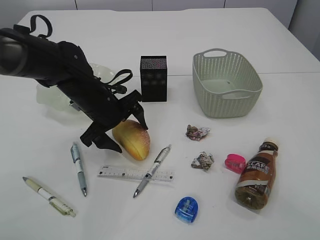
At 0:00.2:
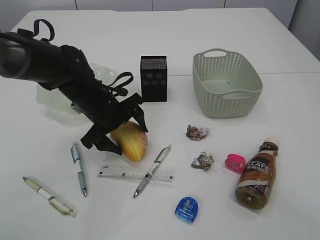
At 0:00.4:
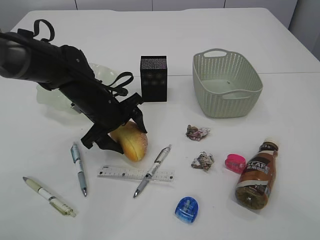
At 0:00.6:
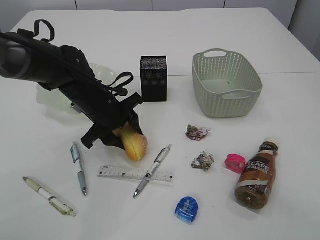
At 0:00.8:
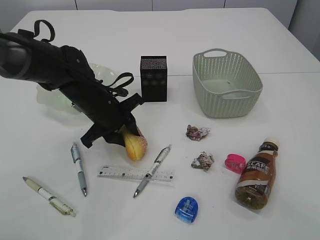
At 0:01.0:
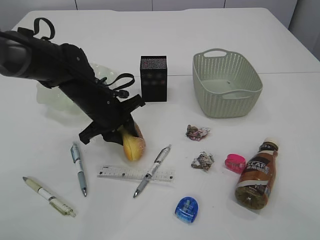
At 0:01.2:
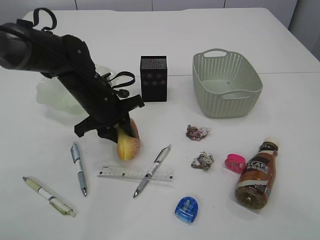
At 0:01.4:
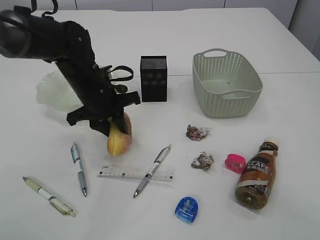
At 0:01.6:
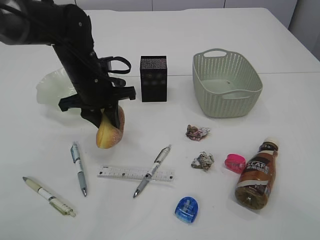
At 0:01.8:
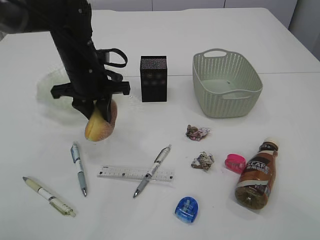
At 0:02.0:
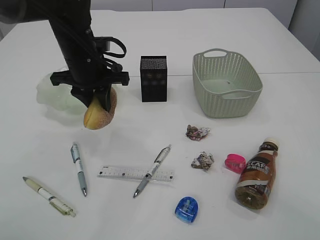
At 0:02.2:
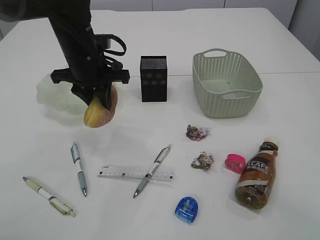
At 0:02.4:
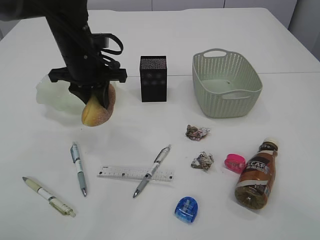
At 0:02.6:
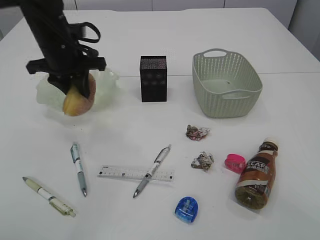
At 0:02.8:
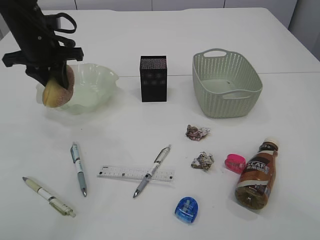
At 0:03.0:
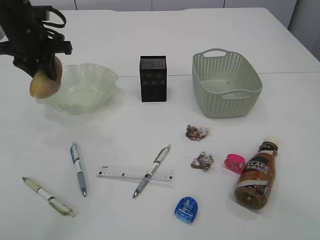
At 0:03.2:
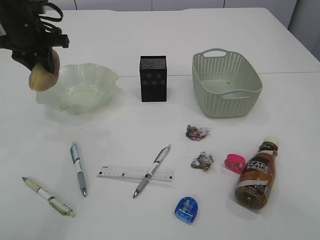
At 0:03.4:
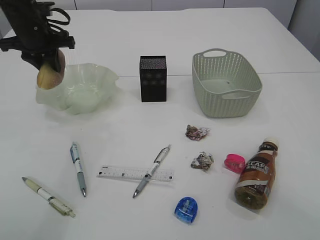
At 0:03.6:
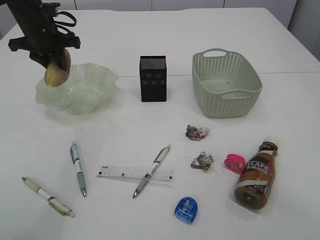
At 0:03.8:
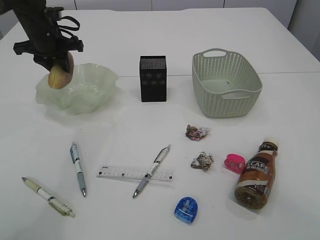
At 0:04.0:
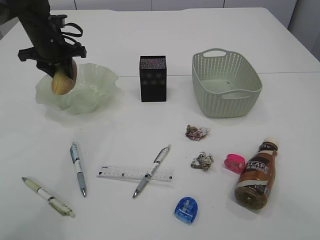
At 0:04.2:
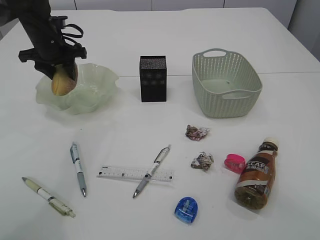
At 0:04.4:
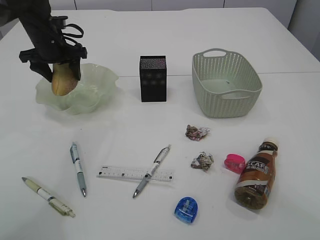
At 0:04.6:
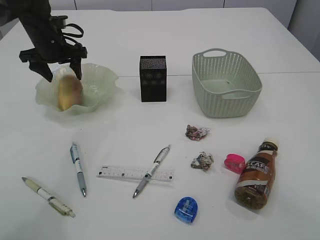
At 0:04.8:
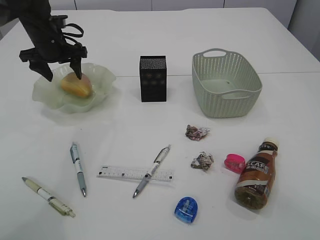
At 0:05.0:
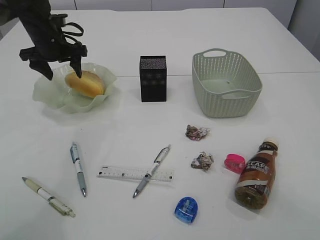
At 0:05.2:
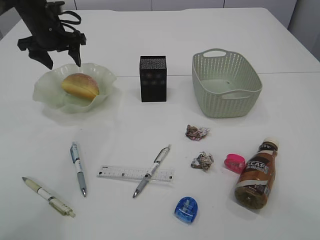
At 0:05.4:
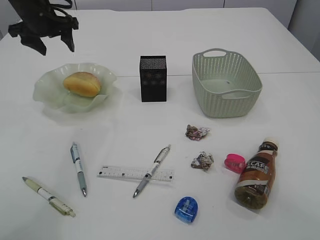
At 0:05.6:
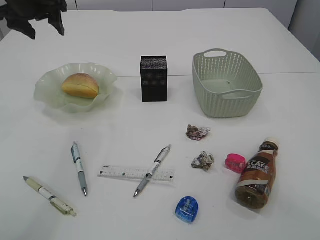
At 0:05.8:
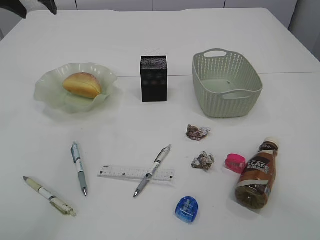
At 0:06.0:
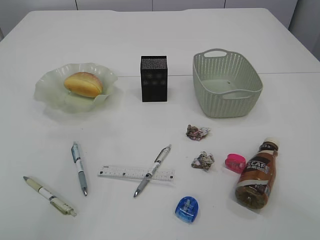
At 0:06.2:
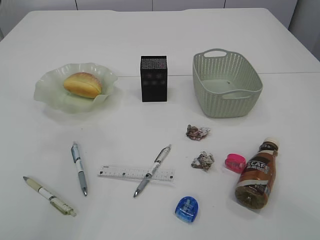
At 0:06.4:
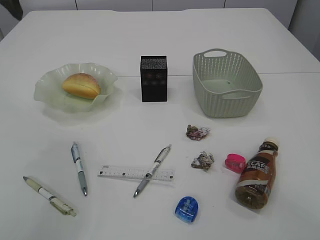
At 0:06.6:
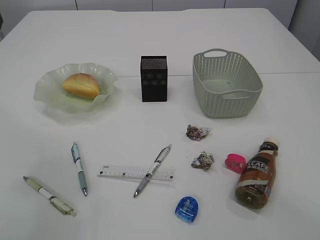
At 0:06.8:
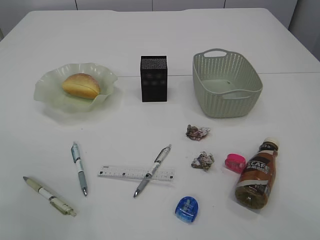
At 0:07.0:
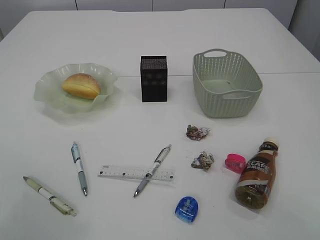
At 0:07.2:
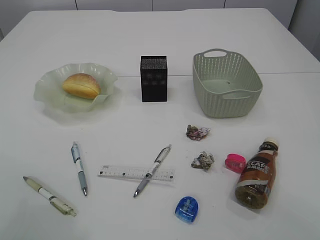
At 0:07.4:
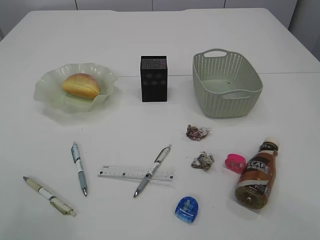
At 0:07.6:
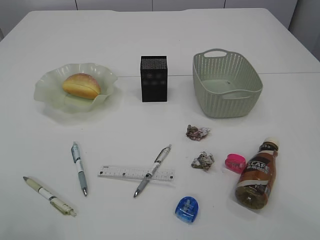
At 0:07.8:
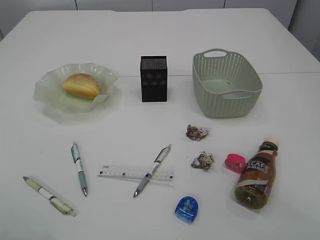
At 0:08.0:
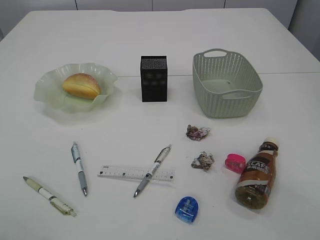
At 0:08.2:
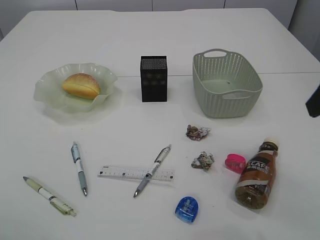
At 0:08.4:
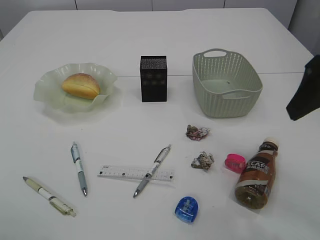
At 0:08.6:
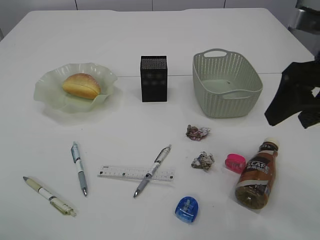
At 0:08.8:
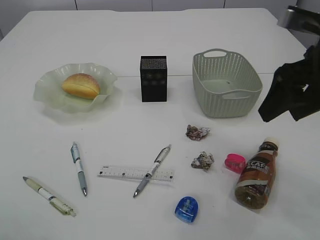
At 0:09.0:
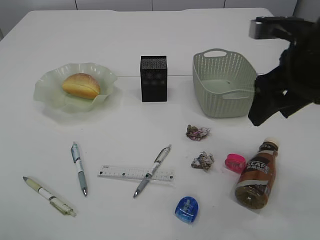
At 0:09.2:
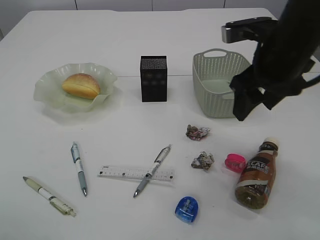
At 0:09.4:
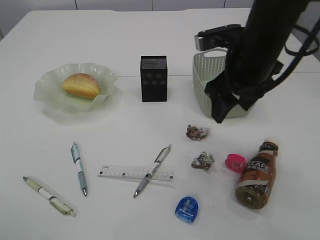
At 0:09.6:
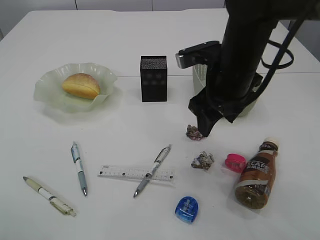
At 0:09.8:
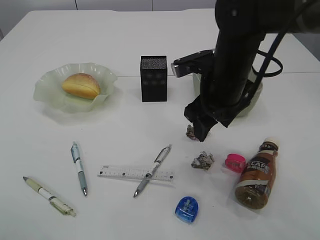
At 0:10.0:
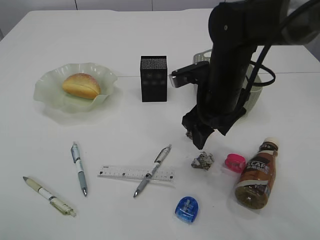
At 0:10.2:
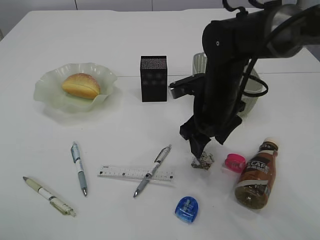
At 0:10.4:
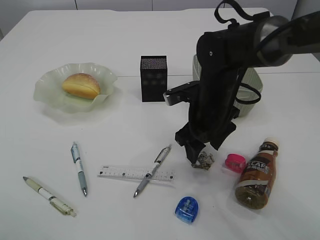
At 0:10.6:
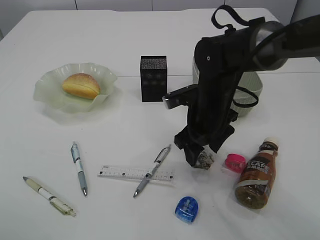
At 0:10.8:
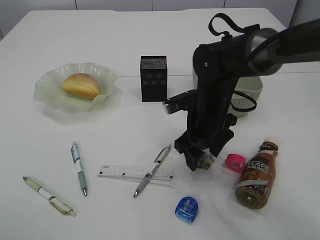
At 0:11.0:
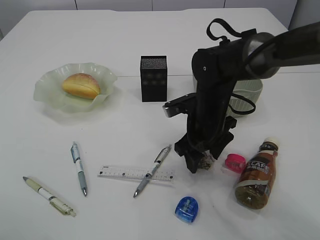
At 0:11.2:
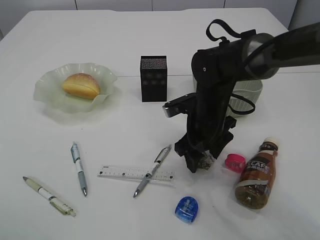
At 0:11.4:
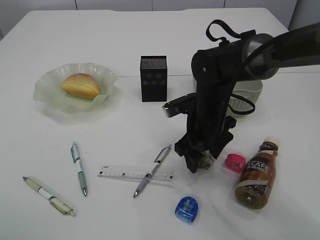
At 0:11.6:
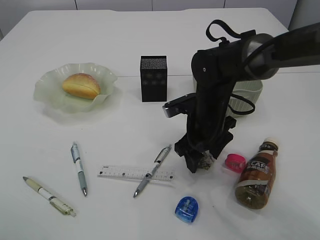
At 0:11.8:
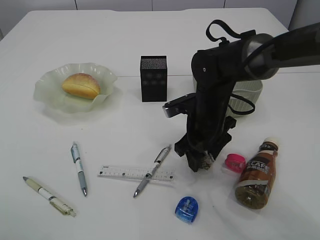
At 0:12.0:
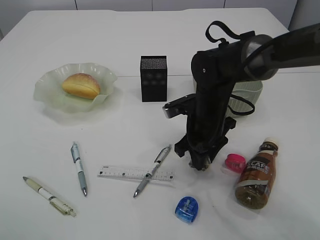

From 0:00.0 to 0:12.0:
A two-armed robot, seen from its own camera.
Step, from 0:02.6 to 0:05.4: place the bread in the plate.
From 0:00.0 to 0:01.6: The left gripper closes up.
From 0:01.6 to 0:03.0: The left gripper shifts approximately 15 cm to the left, upward and forward.
From 0:03.0 to 0:04.4: The left gripper heads forward, covering roughly 5 cm, and opens its fingers.
From 0:04.4 to 0:06.0: The left gripper shifts approximately 20 cm upward.
From 0:07.6 to 0:09.0: The right gripper heads forward, covering roughly 15 cm.
From 0:09.0 to 0:10.4: The right gripper moves downward, to the left and forward, some 20 cm.
From 0:10.4 to 0:12.0: The right gripper closes.

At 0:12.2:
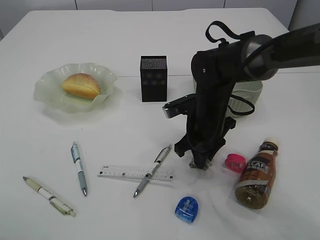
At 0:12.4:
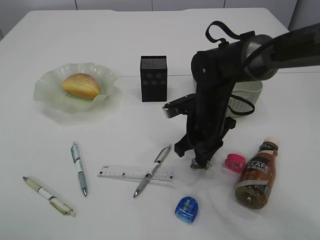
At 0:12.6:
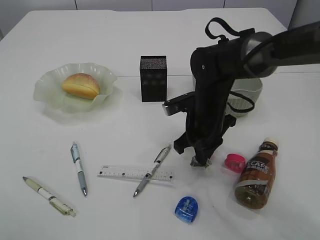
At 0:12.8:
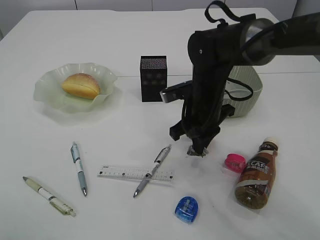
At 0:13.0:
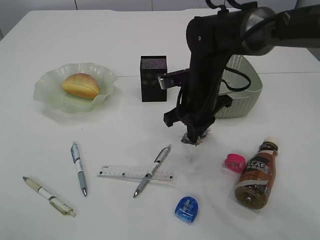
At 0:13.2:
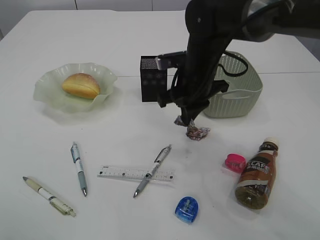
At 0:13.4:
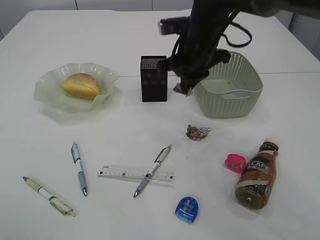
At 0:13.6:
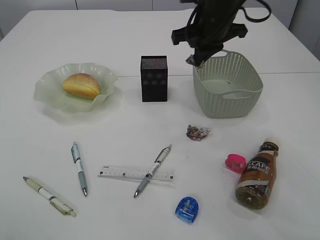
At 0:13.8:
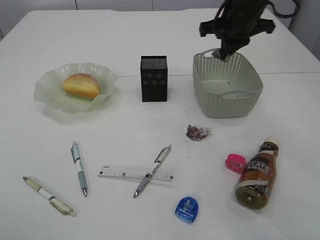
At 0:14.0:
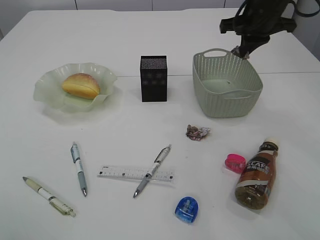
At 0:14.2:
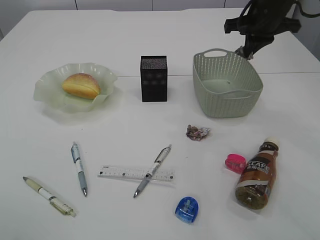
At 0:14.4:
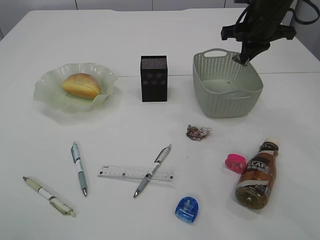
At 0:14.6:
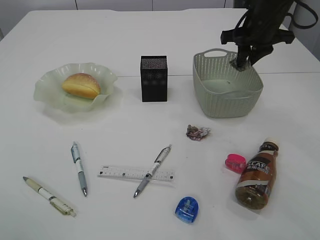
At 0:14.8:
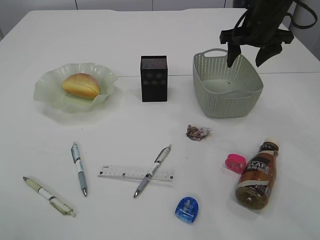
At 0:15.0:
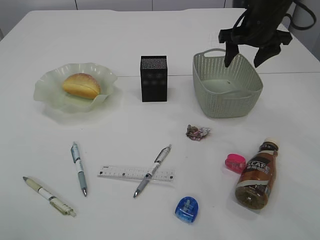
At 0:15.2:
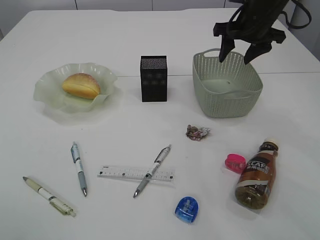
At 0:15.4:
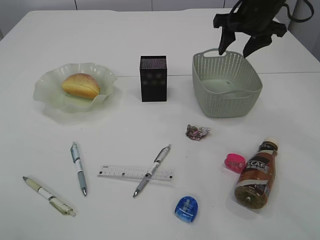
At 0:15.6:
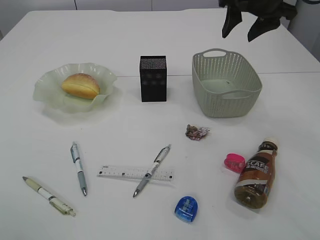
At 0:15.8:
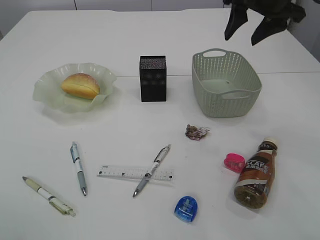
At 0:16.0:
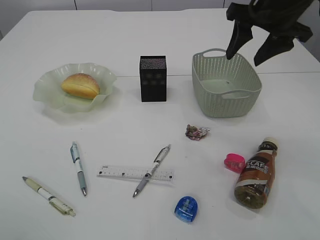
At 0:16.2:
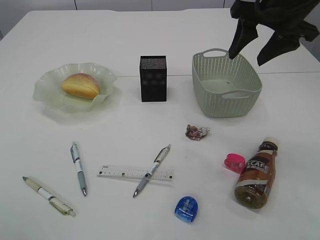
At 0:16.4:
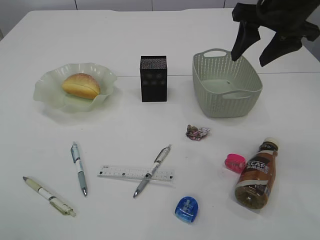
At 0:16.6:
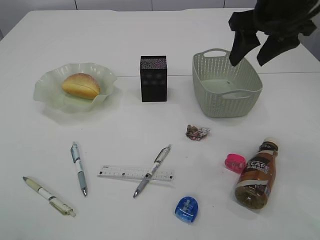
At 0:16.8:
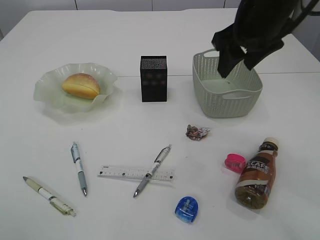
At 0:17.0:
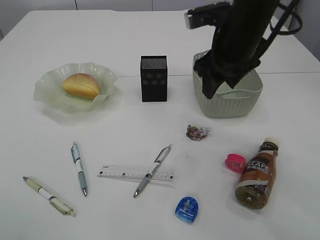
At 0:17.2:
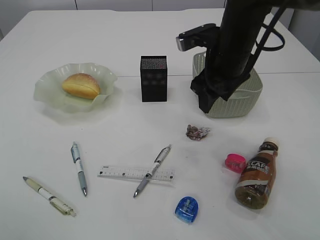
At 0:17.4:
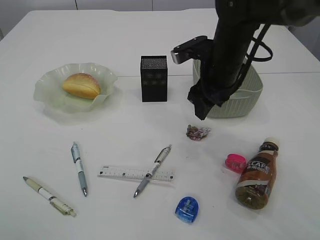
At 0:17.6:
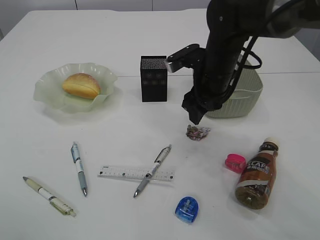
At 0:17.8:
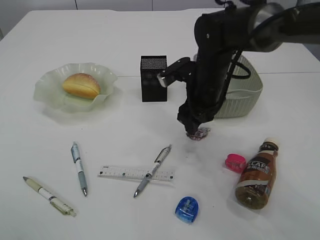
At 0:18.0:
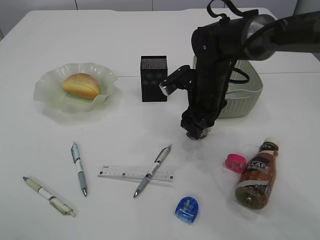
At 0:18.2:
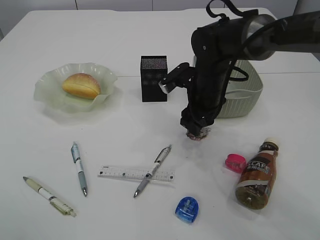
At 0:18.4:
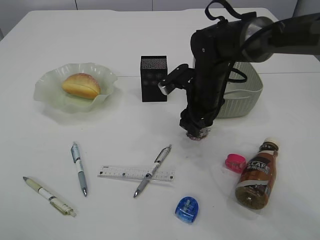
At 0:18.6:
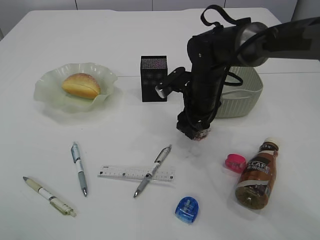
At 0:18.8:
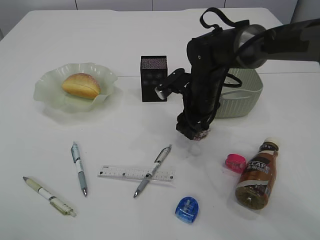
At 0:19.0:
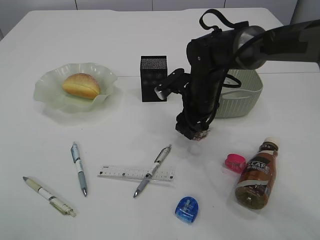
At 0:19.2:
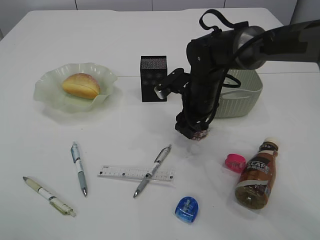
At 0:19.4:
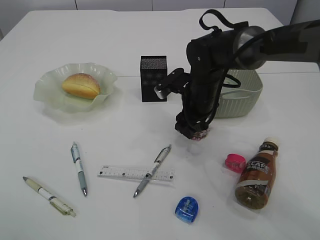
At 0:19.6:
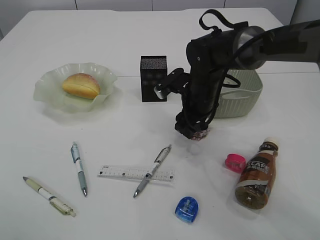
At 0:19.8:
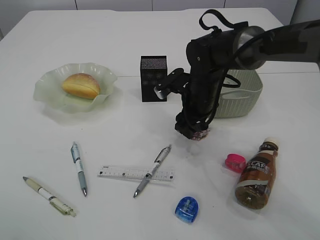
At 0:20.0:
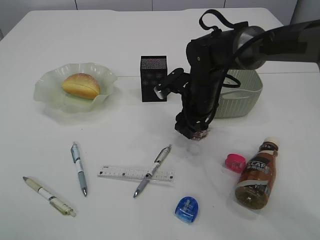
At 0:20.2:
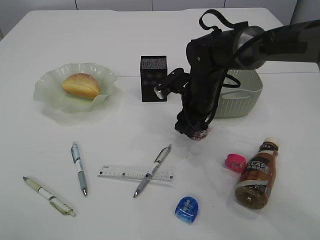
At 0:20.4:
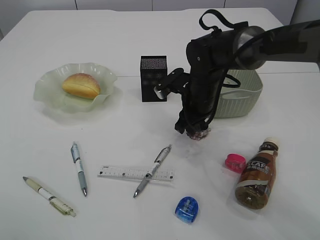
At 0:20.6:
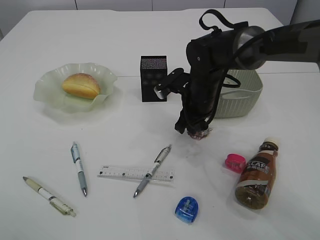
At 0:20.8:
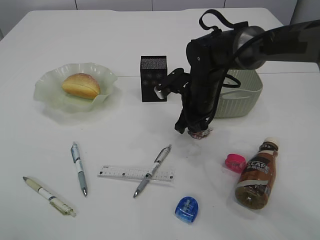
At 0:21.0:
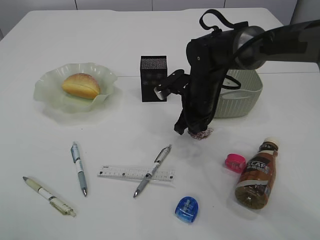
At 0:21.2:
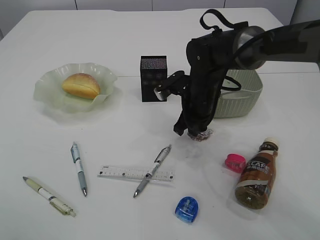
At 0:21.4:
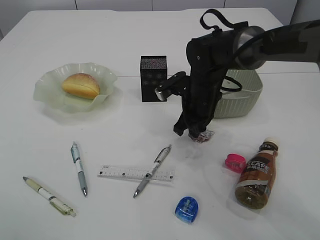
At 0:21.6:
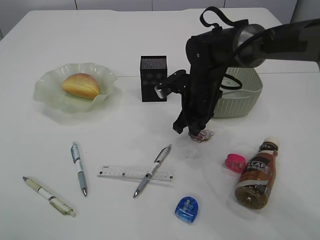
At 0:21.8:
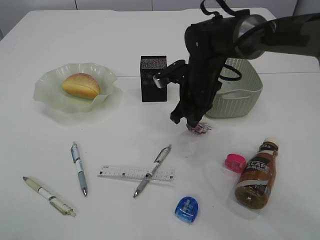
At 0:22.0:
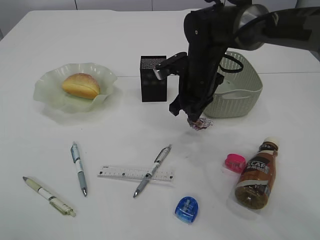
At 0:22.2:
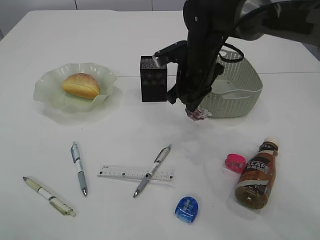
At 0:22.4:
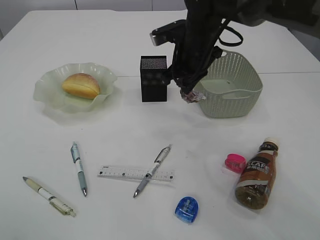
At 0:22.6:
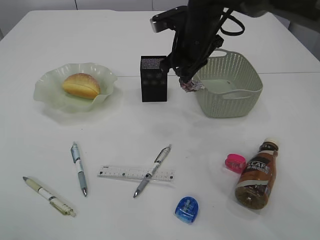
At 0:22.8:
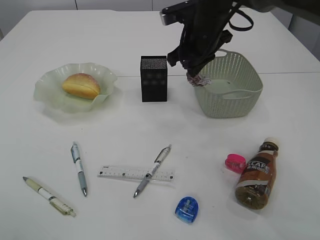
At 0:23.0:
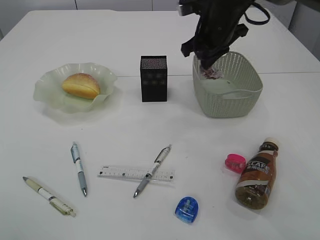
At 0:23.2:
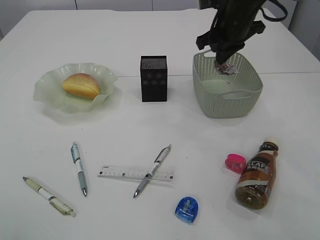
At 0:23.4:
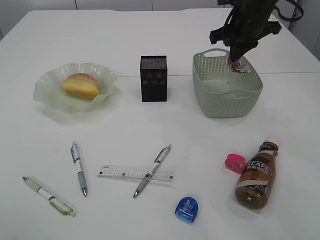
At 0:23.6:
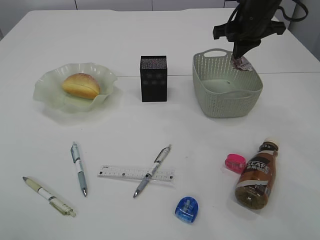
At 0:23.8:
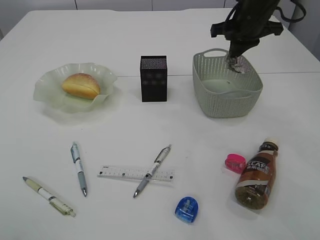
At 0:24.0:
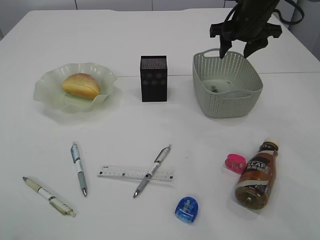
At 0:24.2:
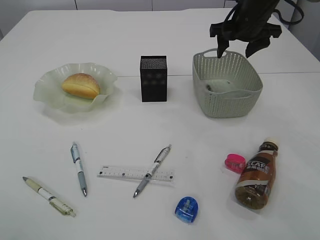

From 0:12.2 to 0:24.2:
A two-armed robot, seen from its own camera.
Step, from 0:13.4 to 0:15.4: Place the waste paper in the basket.
Step, from 0:15.6 to 0:22.2: Pick up the waste paper.
From 0:12.2 to 0:13.8: The right gripper is displaced upward, forward and to the right by about 20 cm.
From 0:13.8 to 0:15.2: The right gripper changes place by roughly 5 cm, and opens its fingers.
From 0:15.2 to 0:16.6: The right gripper moves backward and upward, about 10 cm.
From 0:16.6 to 0:18.2: The right gripper shifts about 20 cm downward and to the left.
From 0:18.2 to 0:19.8: The grippers move only a little.
From 0:19.8 to 0:21.2: The right gripper closes up.
From 0:21.2 to 0:22.6: The right gripper heads upward, covering some 10 cm.
From 0:22.6 to 0:24.2: The right gripper shifts about 10 cm to the right, and opens its fingers.
